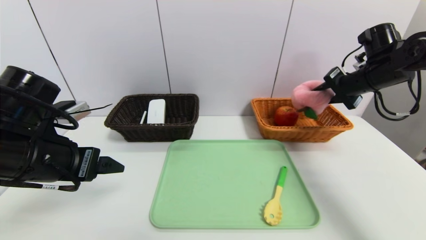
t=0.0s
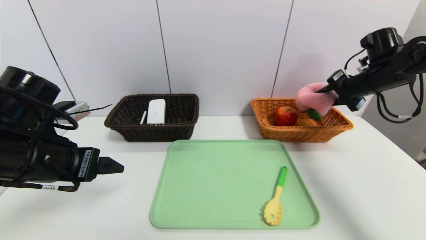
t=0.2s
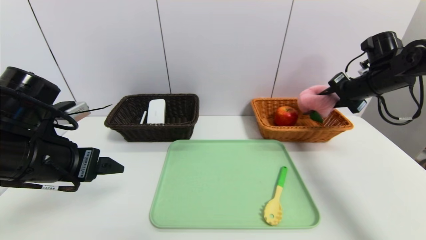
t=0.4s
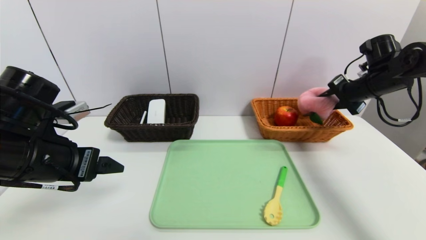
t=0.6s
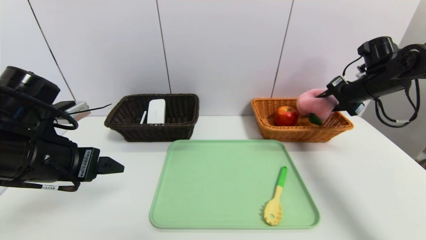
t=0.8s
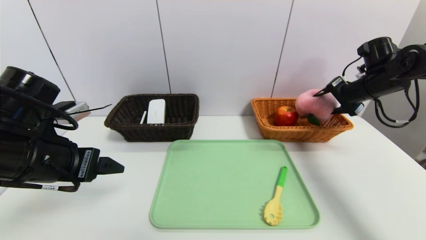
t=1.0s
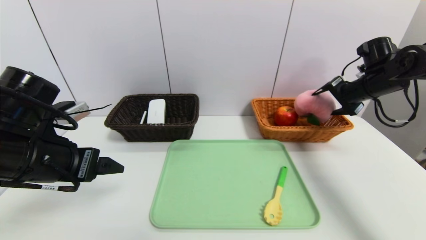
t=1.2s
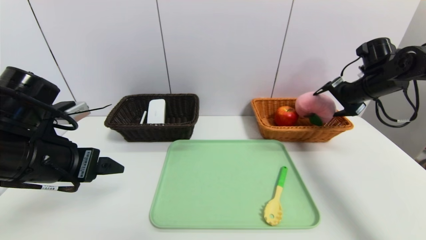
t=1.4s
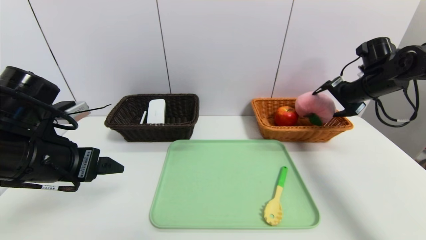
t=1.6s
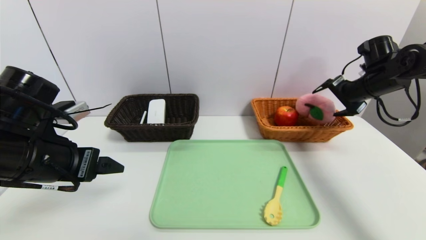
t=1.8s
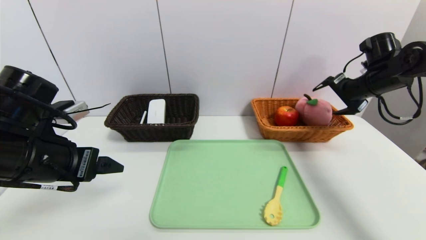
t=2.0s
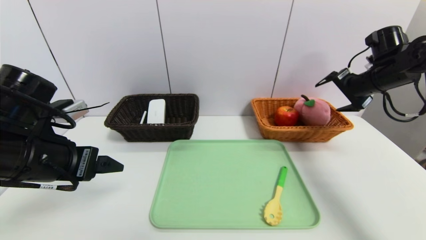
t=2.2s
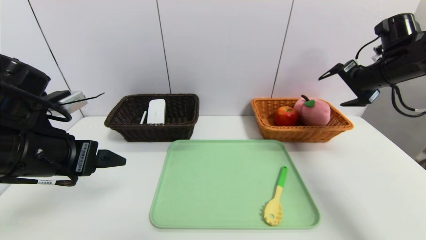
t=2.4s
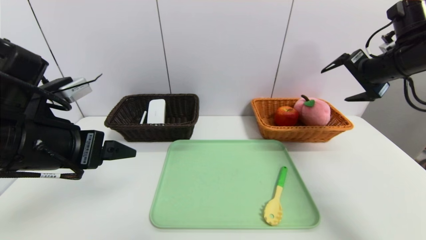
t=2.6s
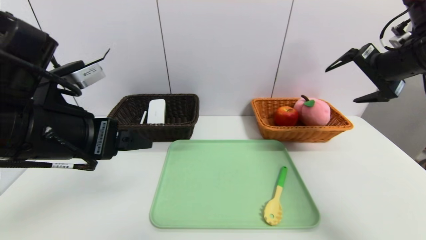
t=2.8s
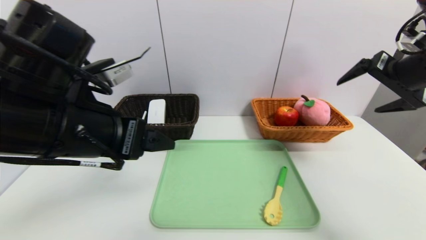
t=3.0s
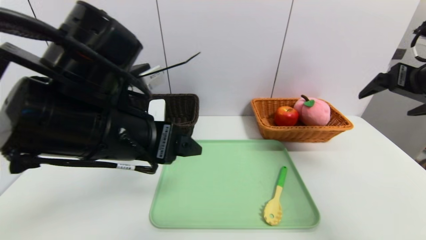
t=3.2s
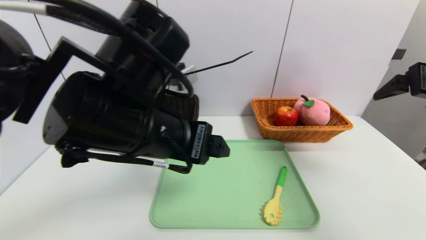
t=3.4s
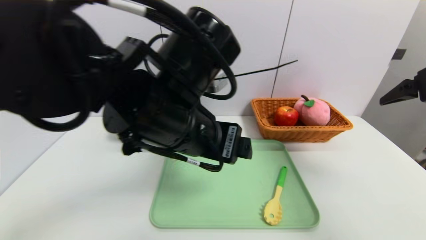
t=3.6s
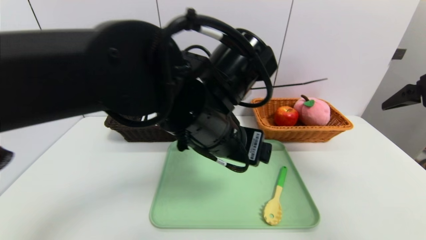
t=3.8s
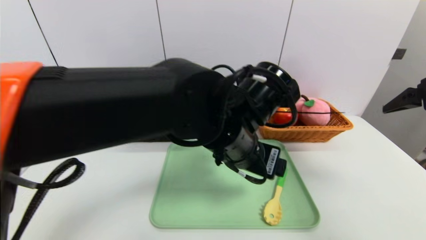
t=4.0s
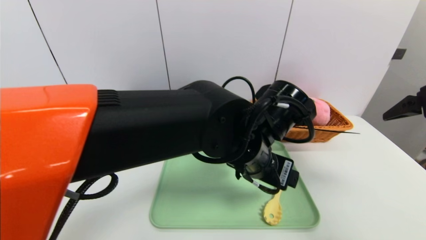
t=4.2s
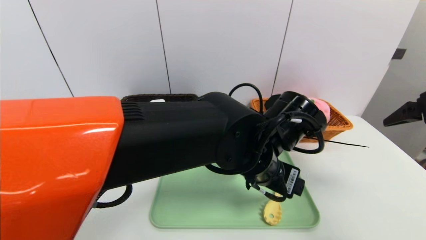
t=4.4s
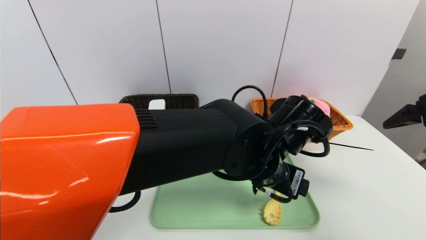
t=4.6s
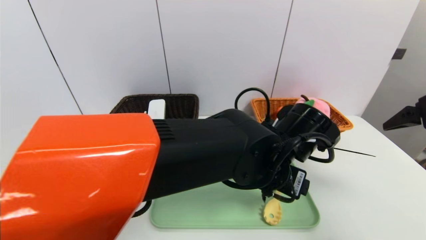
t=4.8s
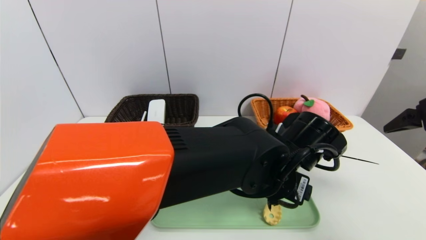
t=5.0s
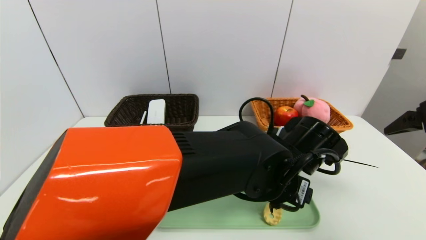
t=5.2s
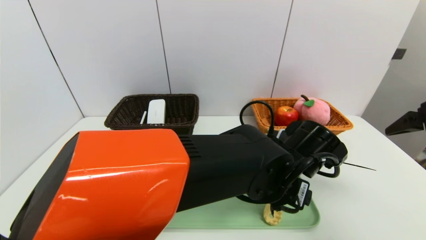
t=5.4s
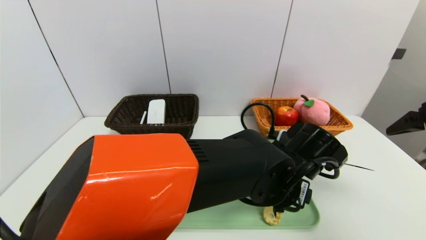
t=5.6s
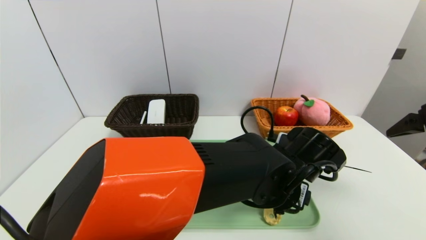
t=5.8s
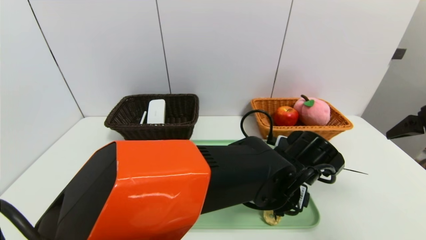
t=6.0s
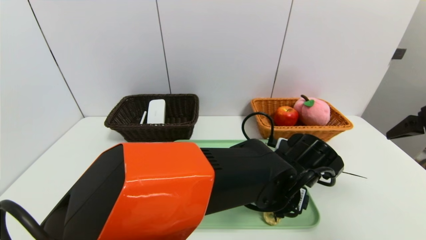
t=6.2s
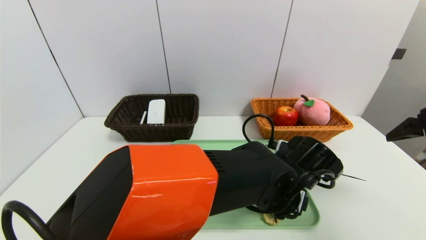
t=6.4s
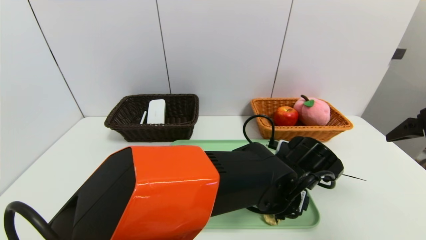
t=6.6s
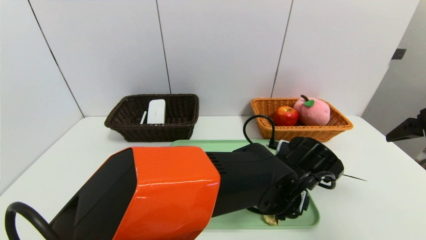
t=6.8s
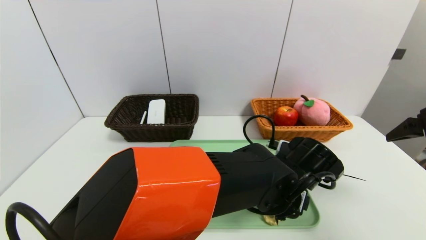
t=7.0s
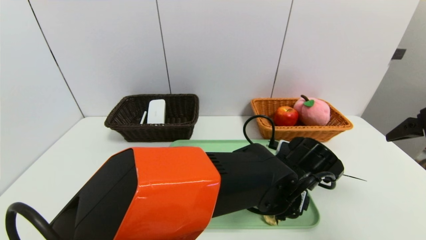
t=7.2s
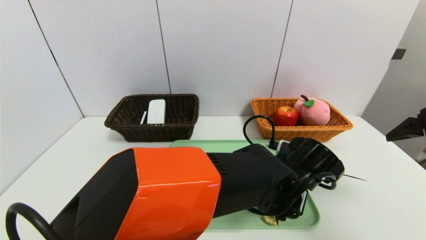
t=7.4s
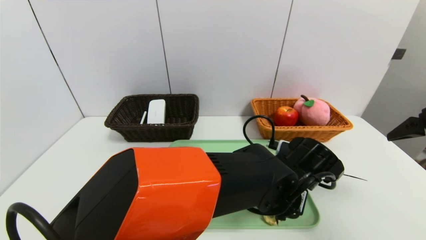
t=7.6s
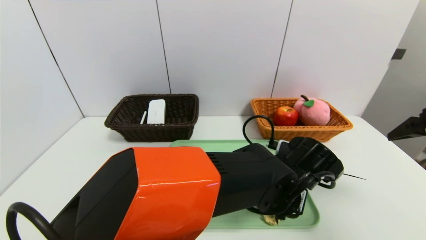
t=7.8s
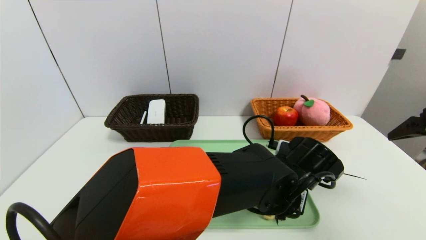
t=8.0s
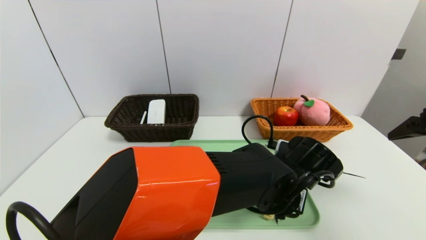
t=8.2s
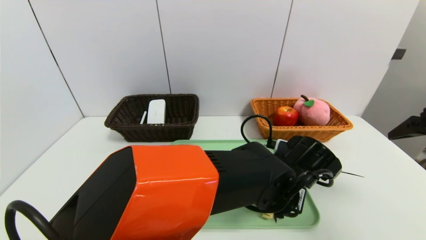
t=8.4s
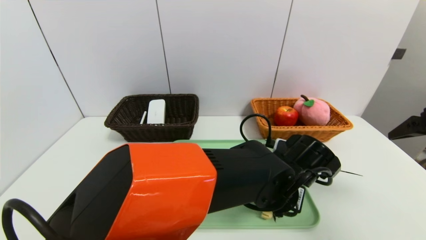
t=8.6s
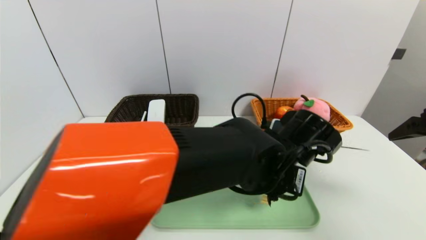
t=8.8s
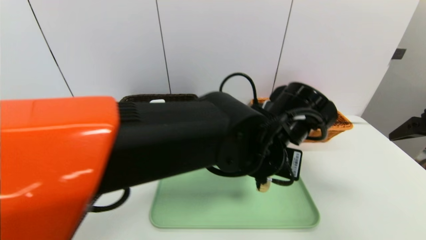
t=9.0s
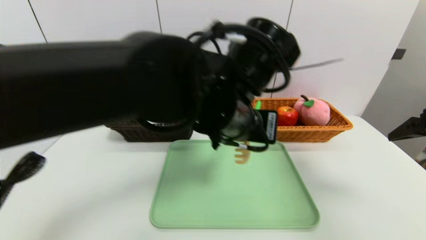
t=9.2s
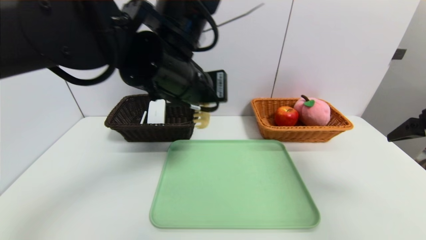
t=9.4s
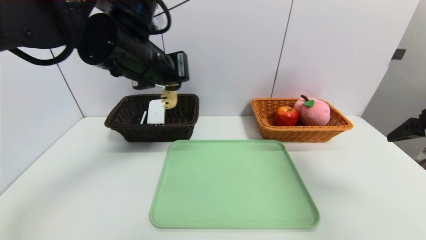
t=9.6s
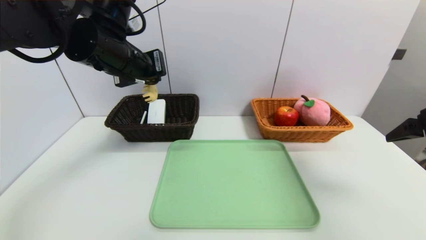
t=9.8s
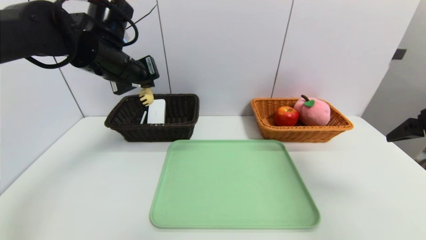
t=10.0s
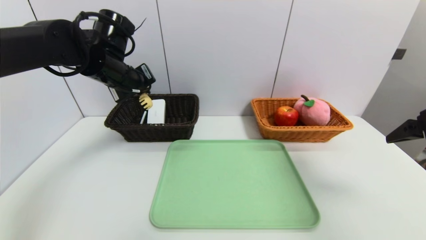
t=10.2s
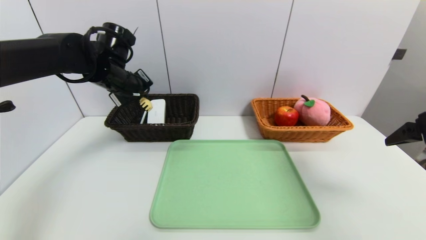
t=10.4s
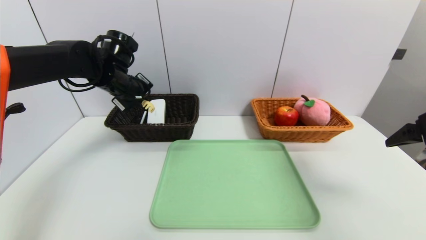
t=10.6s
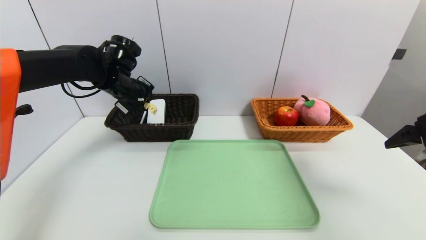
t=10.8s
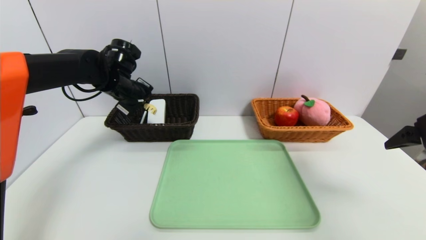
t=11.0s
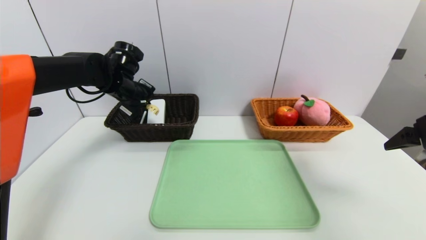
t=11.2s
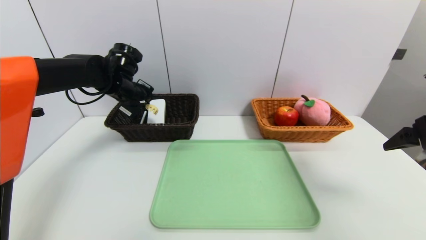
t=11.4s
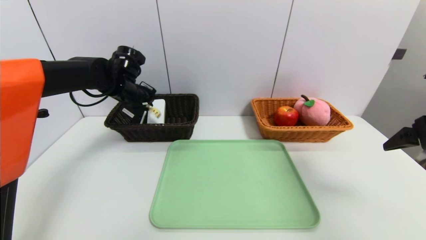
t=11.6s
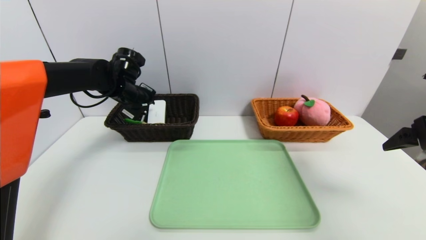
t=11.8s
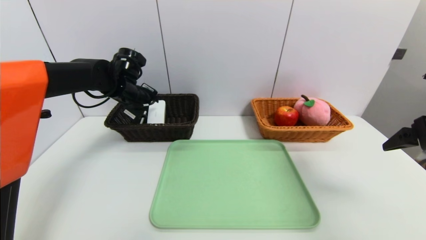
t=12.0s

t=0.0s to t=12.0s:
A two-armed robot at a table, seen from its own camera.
Task of the whole recording: place the food in the right basket with the right gripper, and place the non food items in the left basket with the left gripper.
Step, t=0.0s to t=2.2s: Grasp the peach doll and put it in the right basket.
t=0.0s to t=1.6s: The right gripper opens its fingers.
t=1.6s to t=3.0s: The left gripper is displaced to the right and upward by about 10 cm. The right gripper heads backward and upward, covering roughly 15 cm.
t=3.0s to t=4.4s: The right gripper is displaced backward by some 10 cm. The left gripper is displaced to the right by approximately 25 cm.
t=4.4s to t=6.0s: The left gripper heads downward, covering some 5 cm.
t=6.0s to t=7.6s: The left gripper closes.
t=7.6s to t=9.0s: The left gripper moves upward and to the left, about 10 cm, and closes.
t=9.0s to t=10.4s: The left gripper shifts some 30 cm to the left and forward.
t=10.4s to t=12.0s: The left gripper moves approximately 5 cm, and opens its fingers.

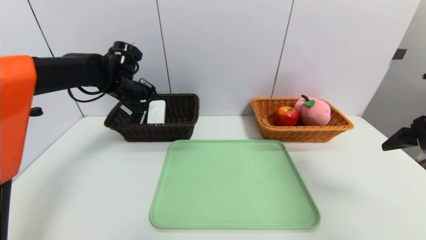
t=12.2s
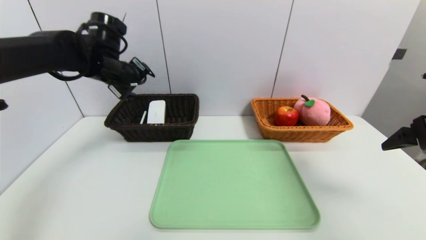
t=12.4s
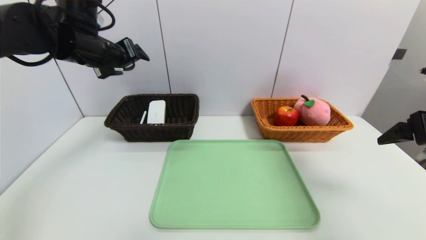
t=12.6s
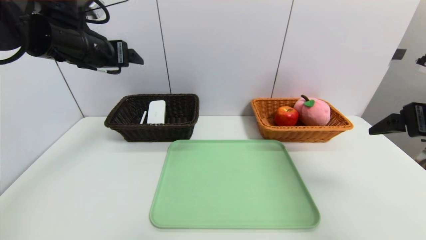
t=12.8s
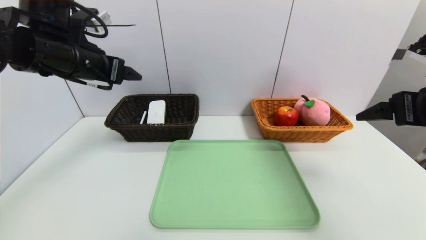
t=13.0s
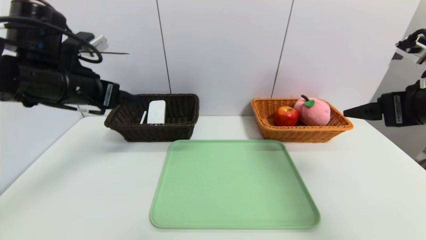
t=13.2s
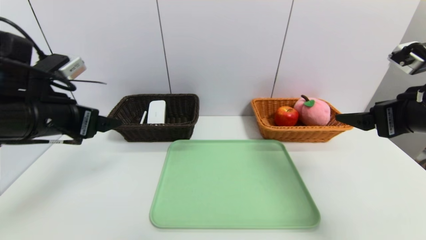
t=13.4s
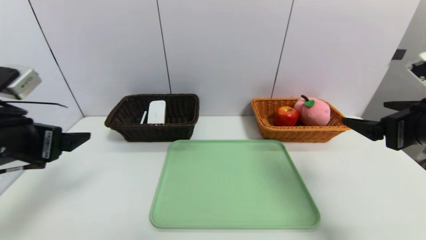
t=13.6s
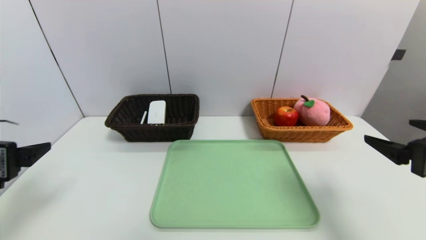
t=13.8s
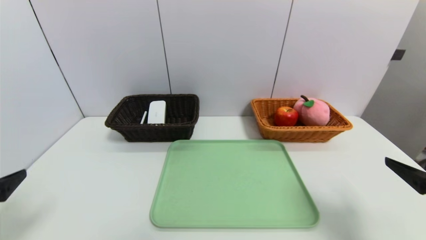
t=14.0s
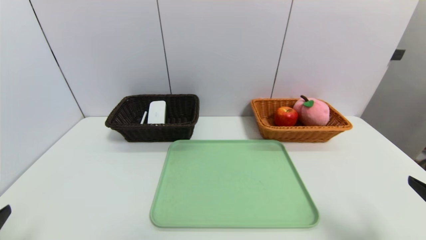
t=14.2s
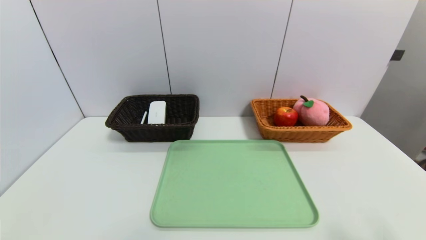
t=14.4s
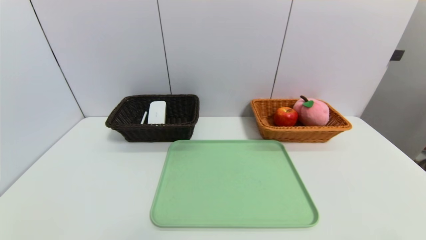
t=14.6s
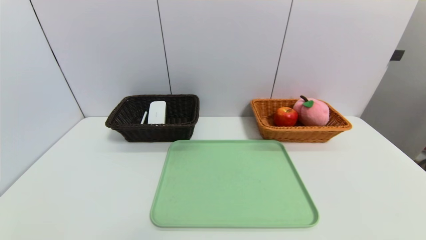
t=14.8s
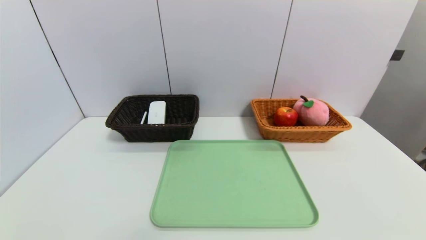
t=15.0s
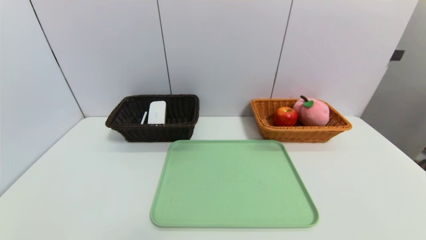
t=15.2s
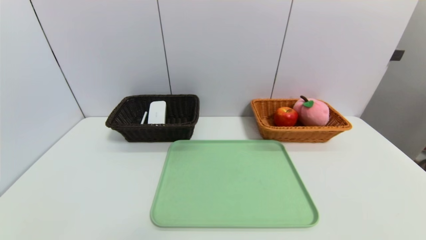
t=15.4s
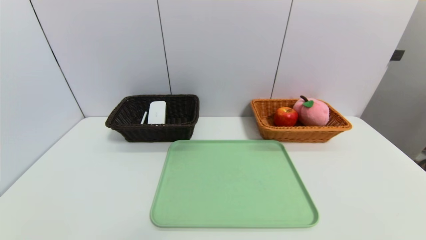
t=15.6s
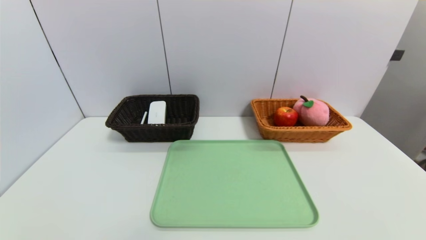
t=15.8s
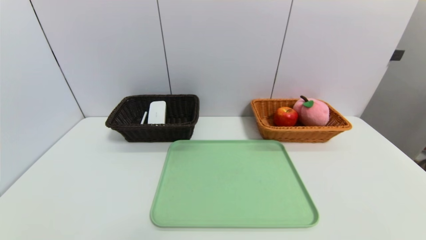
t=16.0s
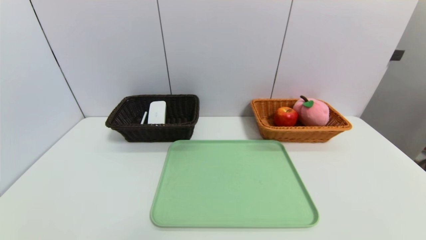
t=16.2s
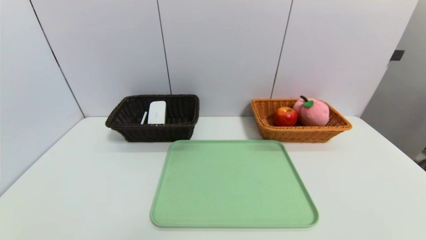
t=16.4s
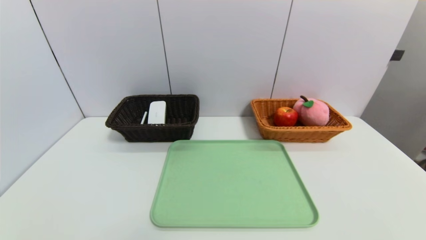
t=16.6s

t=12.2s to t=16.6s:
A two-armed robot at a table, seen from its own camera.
Task of the whole recording: place the food in the right basket with the right gripper, and place the non food items in the left basket with the left gripper.
t=12.2s to t=13.6s: The left gripper heads backward, covering approximately 25 cm.
t=13.6s to t=15.2s: Both grippers travel together backward and downward, approximately 25 cm.
